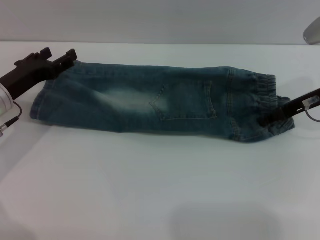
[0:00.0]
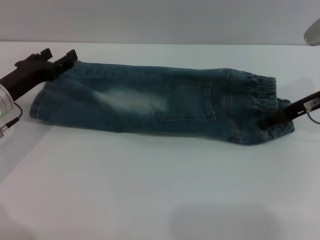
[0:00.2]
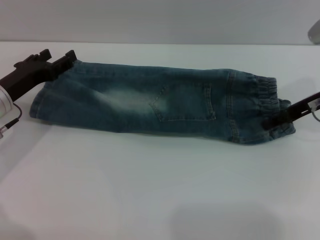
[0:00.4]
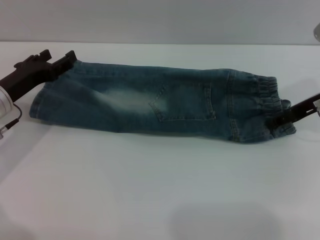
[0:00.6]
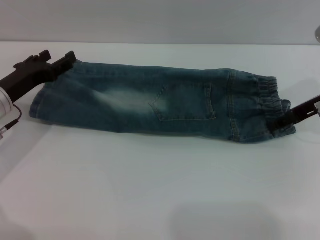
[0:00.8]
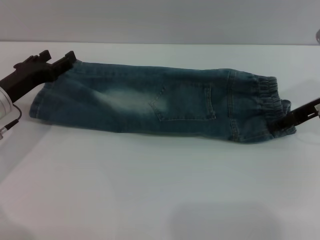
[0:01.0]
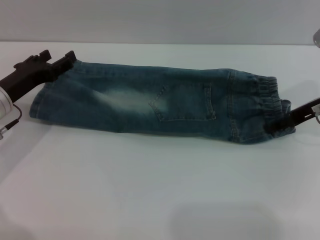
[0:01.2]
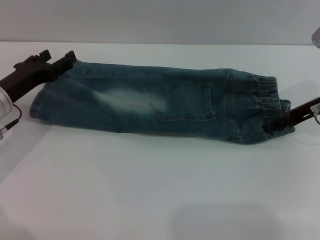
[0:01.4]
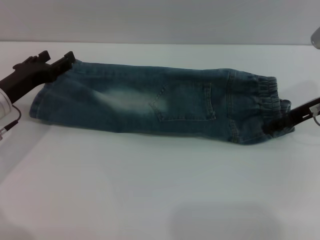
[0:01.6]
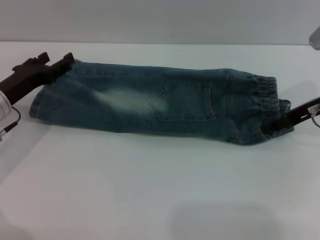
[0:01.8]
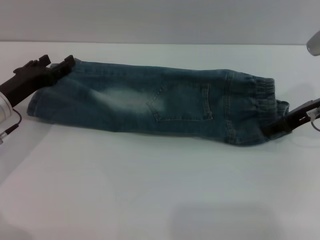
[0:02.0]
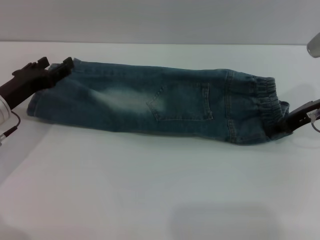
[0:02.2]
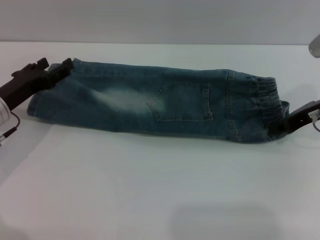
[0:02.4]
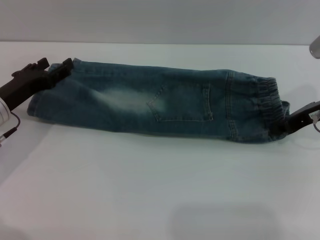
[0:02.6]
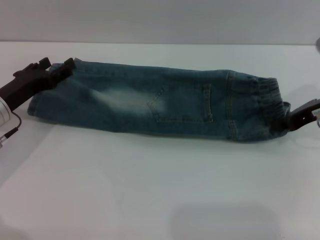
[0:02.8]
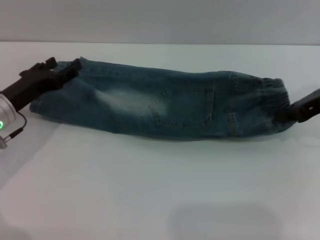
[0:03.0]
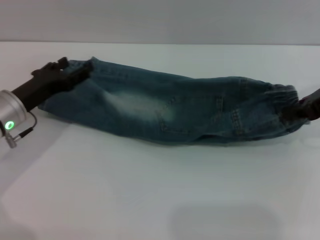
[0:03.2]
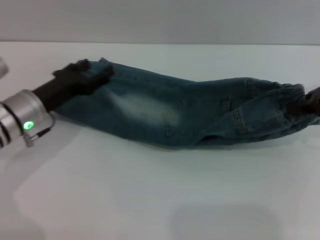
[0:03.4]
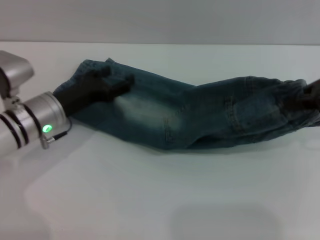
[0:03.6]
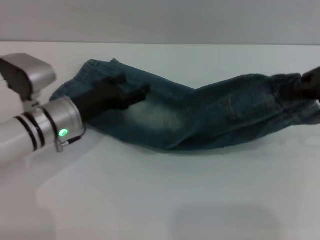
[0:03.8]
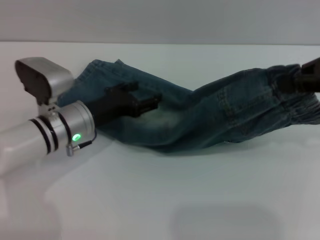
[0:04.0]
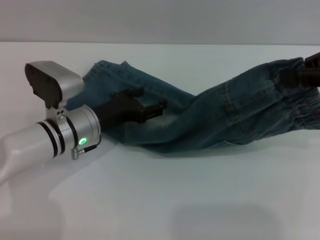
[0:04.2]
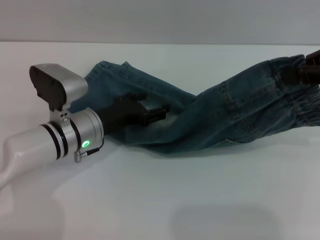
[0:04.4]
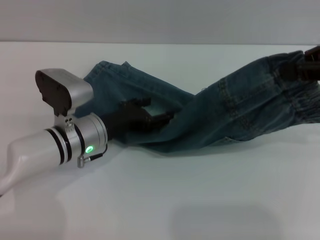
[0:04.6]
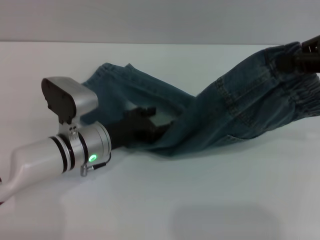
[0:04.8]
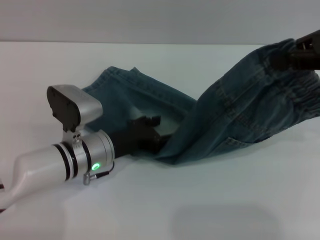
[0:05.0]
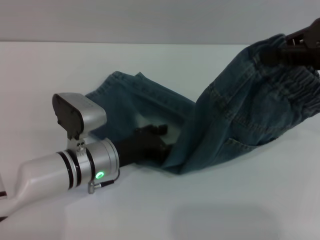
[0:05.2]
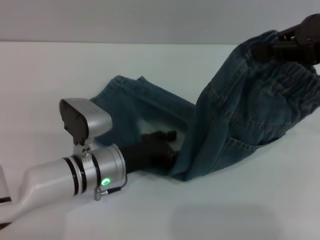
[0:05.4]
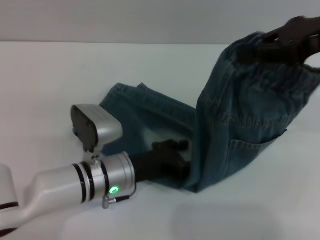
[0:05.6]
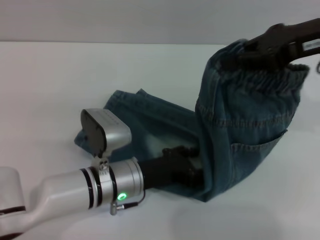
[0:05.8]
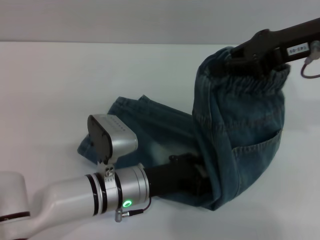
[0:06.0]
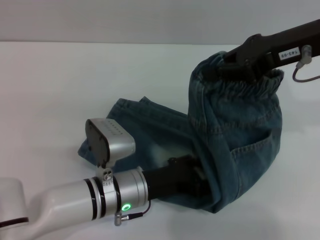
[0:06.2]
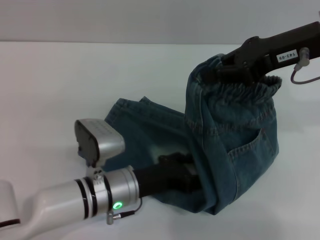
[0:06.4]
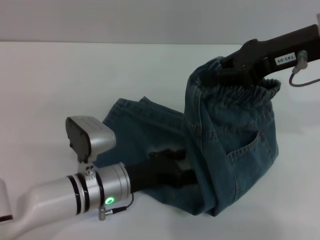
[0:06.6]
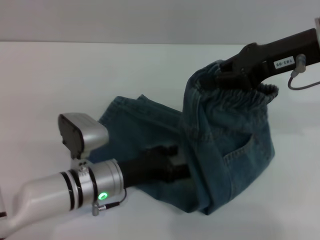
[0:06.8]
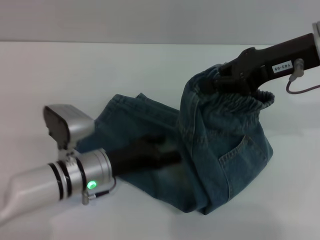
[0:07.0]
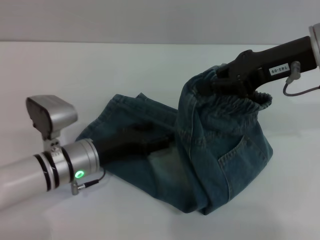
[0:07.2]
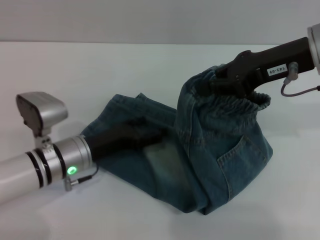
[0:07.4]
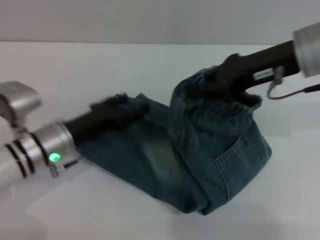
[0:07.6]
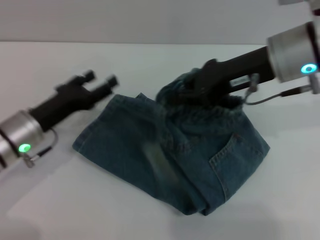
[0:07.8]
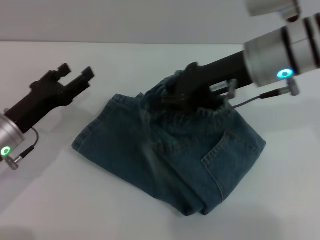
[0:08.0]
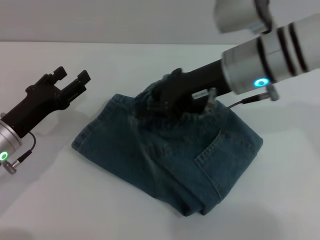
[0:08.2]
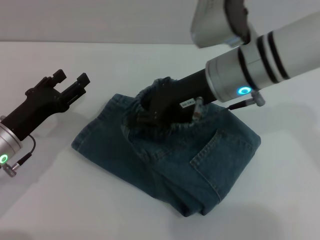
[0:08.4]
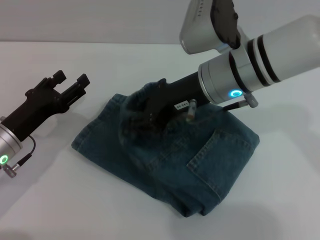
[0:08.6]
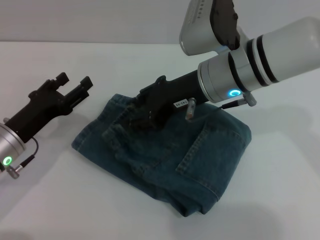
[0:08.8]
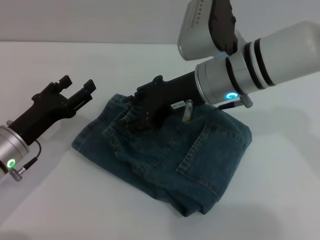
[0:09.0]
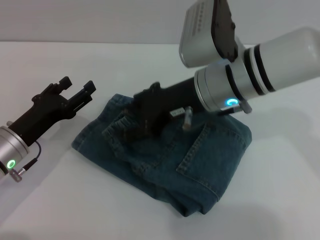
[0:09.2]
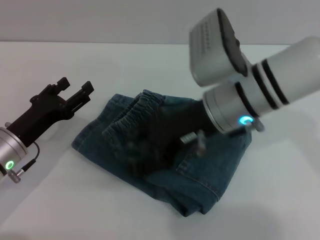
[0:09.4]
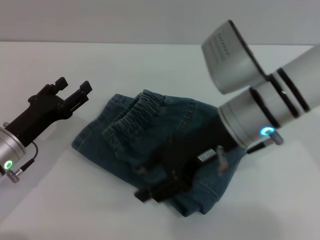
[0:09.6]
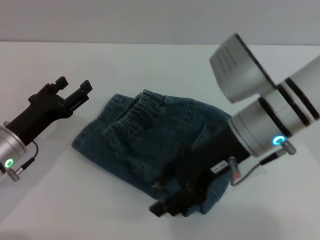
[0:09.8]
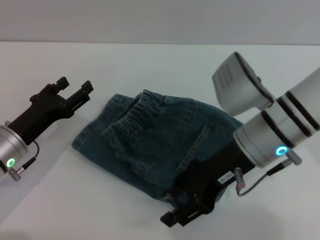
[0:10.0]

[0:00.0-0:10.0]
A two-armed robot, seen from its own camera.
Step, 0:00.0 to 0:09.6: Fold the pants from right to left with the right gripper.
0:00.0 to 0:01.4: The grippers stay close to where they were, moving slightly.
0:01.4 to 0:02.8: The right gripper closes up.
0:02.8 to 0:04.2: The left gripper heads to the right, covering approximately 10 cm; the right gripper is displaced upward and backward by some 15 cm.
0:04.2 to 0:05.8: The left gripper is displaced backward and to the right by roughly 10 cm. The right gripper goes roughly 5 cm to the left.
0:05.8 to 0:07.2: The left gripper heads to the left, covering about 5 cm.
0:07.2 to 0:08.6: Both grippers move to the left, some 10 cm.
0:08.6 to 0:10.0: The right gripper ends up some 10 cm from where it was, and opens its fingers.

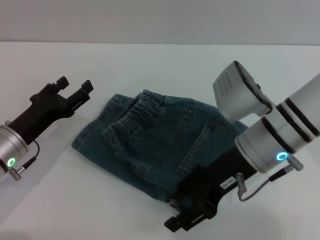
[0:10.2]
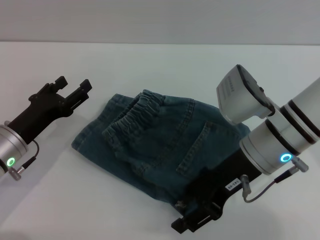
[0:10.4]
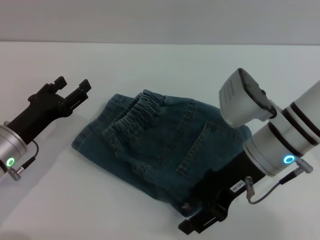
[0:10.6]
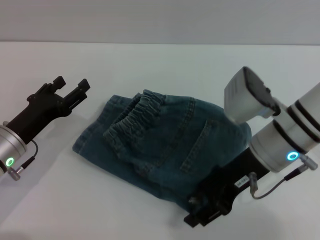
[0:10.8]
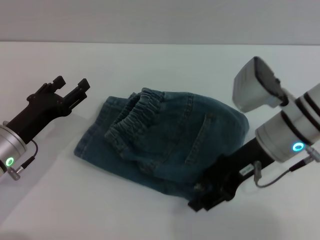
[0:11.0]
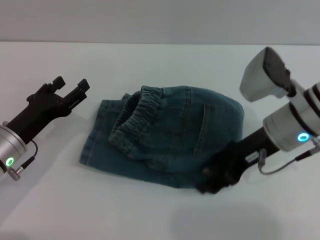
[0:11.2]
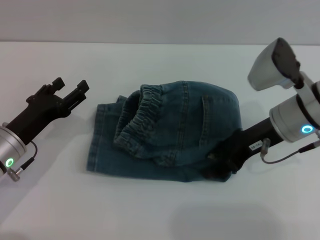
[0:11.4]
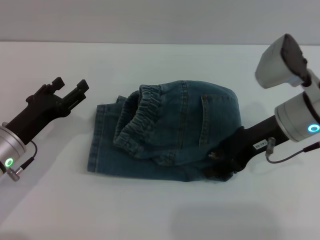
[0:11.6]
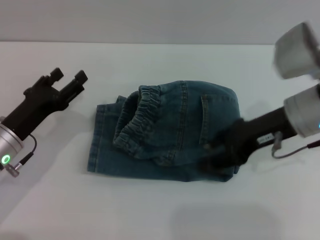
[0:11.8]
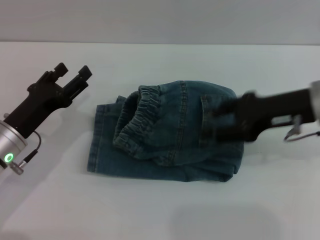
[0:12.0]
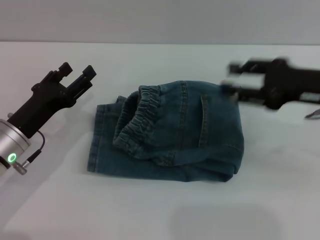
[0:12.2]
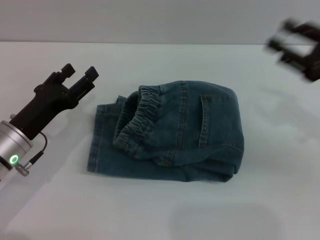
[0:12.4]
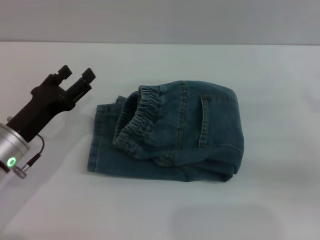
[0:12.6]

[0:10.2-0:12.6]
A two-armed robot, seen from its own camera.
Step, 0:10.2 to 0:11.8: Place the folded trousers onto the center area with the right grippers.
0:10.2 to 0:11.4: The right gripper shifts some 5 cm to the right.
0:11.4 to 0:12.6: The right gripper goes approximately 15 cm to the right.

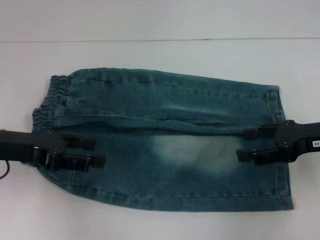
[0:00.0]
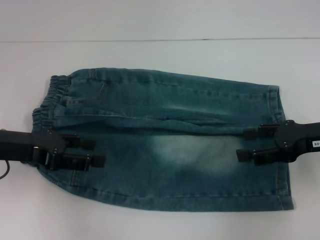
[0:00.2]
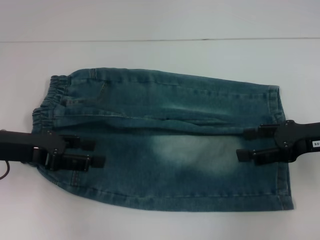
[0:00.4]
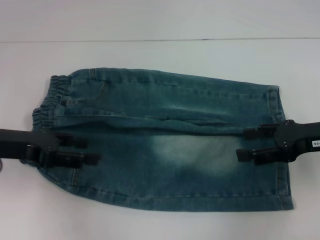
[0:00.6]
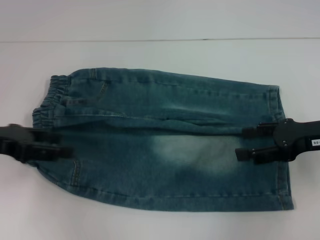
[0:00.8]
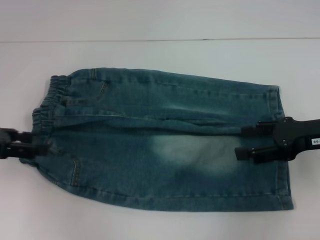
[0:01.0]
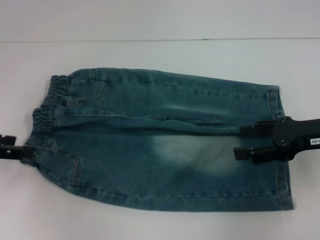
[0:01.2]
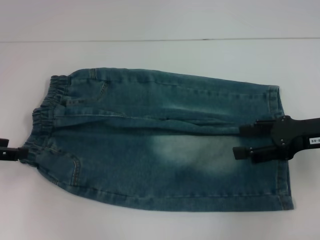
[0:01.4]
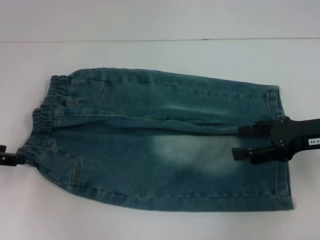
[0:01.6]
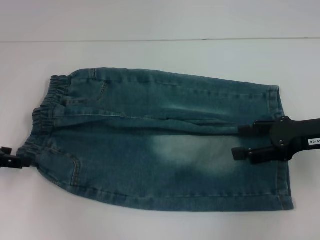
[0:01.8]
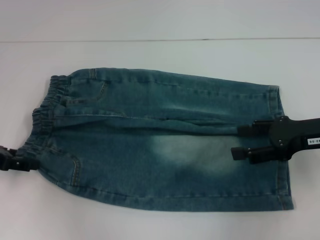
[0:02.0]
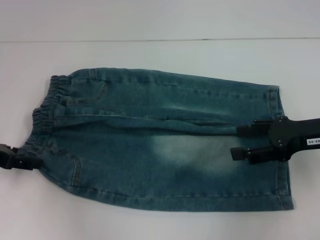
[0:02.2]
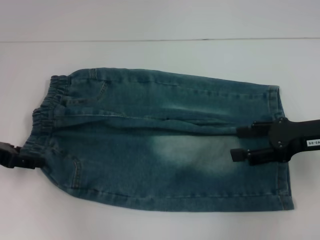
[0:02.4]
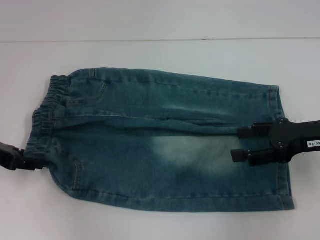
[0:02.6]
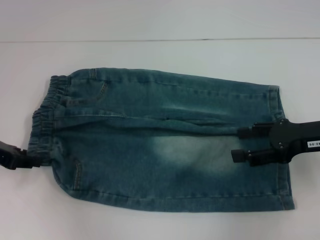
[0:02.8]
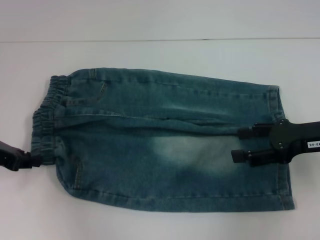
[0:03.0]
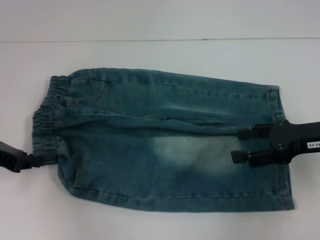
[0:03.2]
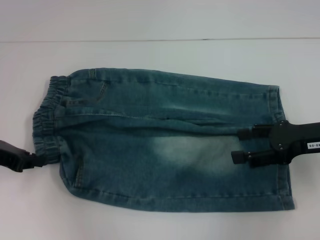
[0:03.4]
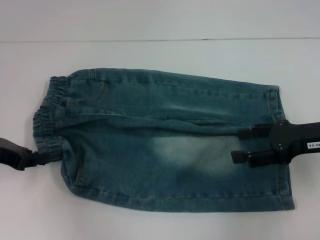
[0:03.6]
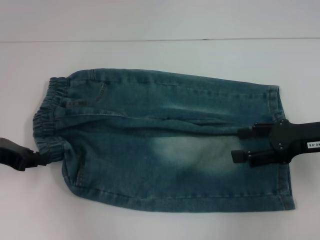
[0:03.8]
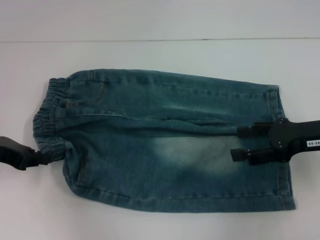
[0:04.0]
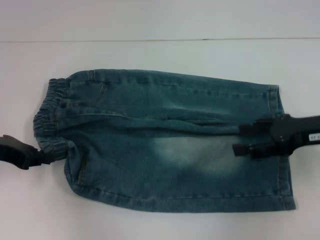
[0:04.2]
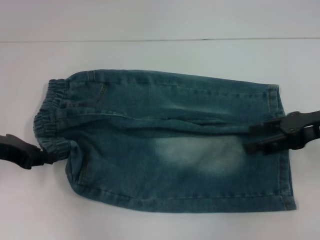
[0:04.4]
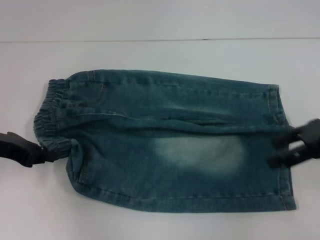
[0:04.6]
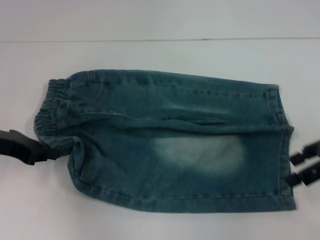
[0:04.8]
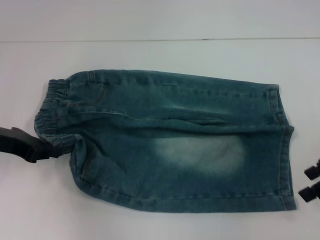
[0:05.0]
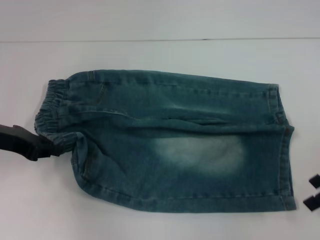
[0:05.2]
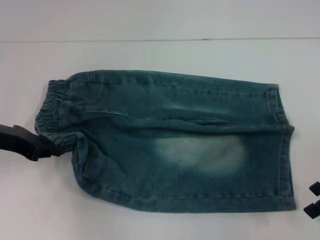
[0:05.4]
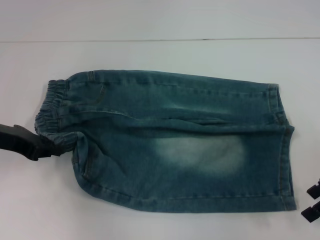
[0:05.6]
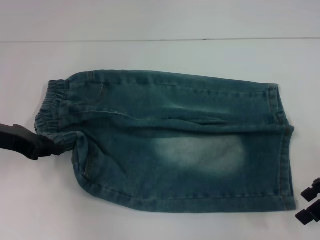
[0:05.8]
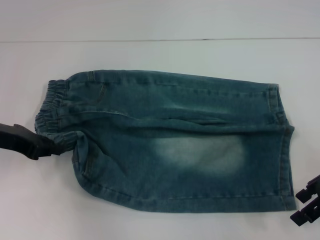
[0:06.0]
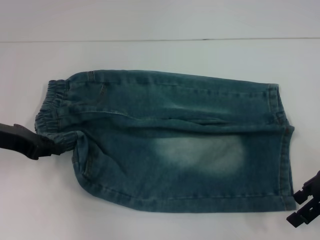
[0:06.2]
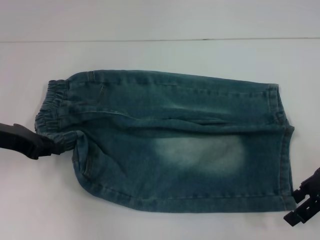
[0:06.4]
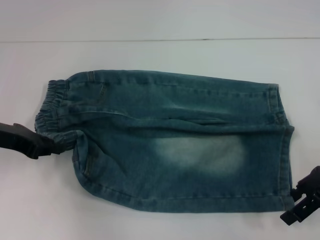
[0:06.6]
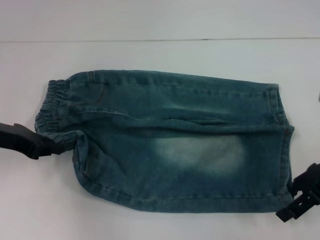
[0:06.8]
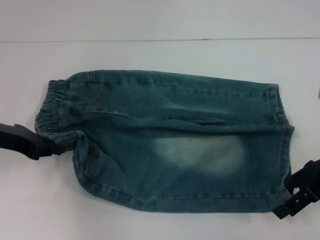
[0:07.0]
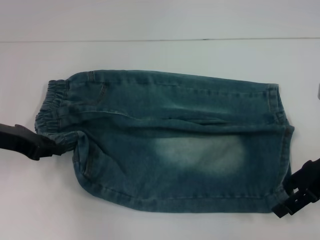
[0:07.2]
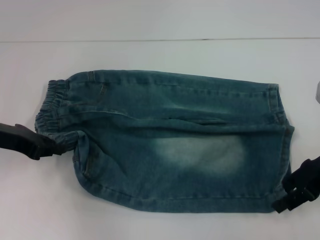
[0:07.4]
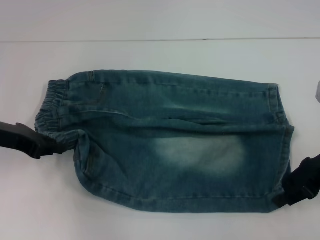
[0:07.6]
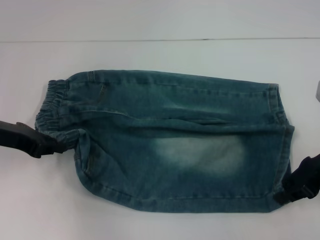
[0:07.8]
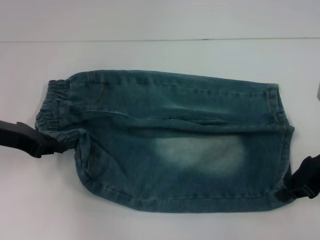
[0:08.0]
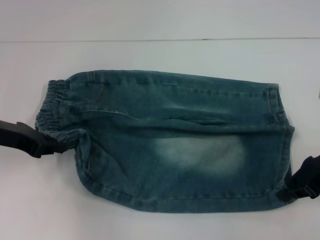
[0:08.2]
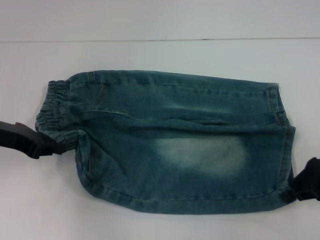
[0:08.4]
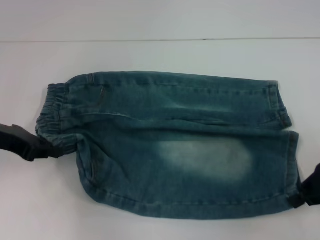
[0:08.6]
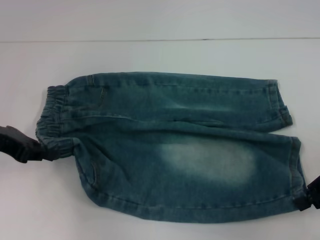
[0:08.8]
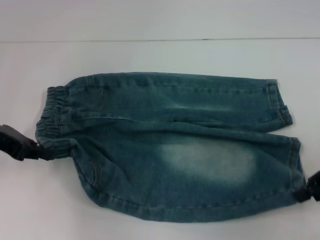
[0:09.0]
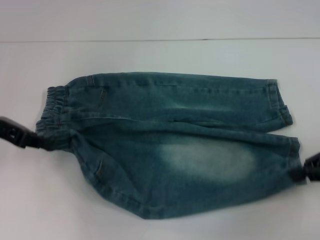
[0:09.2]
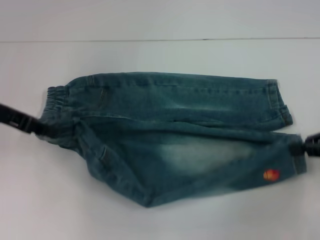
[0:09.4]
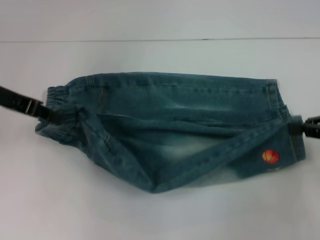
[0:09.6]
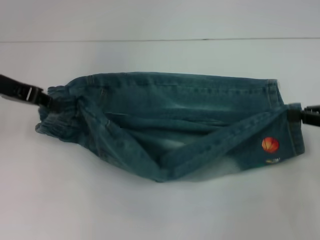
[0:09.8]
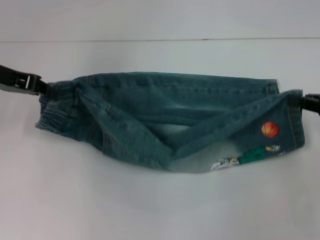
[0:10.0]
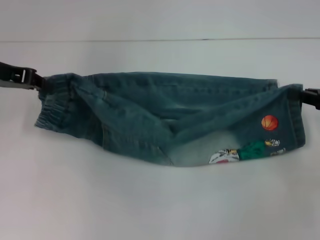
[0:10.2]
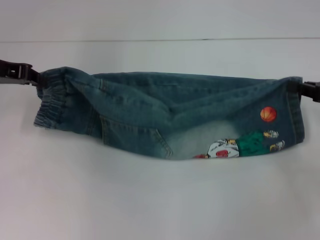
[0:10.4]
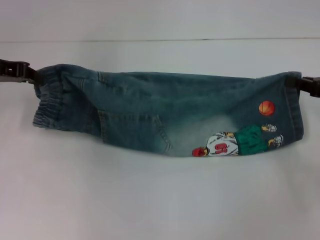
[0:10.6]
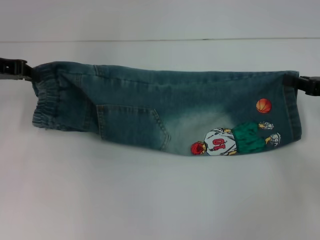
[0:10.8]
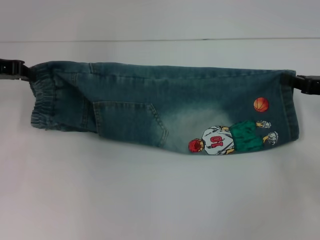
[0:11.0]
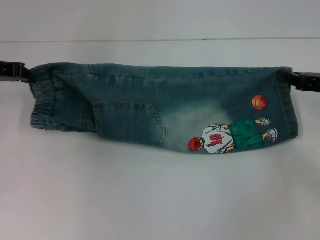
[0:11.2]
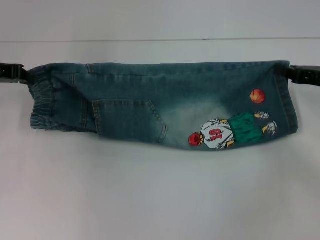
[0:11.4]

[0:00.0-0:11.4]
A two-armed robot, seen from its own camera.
Step, 0:00.0 to 0:03.8: Hold the lower left waistband with your left hand.
Step, 0:04.0 to 0:08.0: Grab the lower right pant leg with your right hand.
0:00.0 to 0:01.4: The left gripper travels to the left by approximately 10 cm.
0:01.4 to 0:02.8: The grippers stay close to where they were, moving slightly.
0:02.8 to 0:04.2: The left gripper closes.
0:05.6 to 0:07.2: There are only small adjustments of the grippers.
0:07.2 to 0:08.6: The right gripper closes its fingers.
0:08.6 to 0:10.0: The left gripper moves forward and upward, about 10 cm.
0:10.0 to 0:11.4: The right gripper moves approximately 5 cm.
